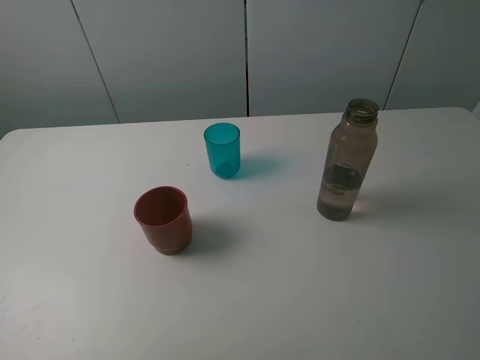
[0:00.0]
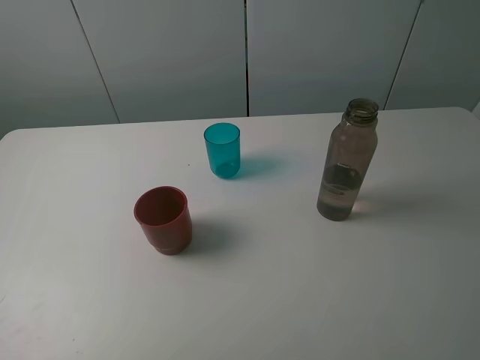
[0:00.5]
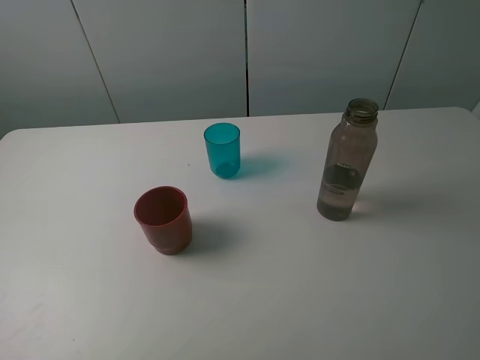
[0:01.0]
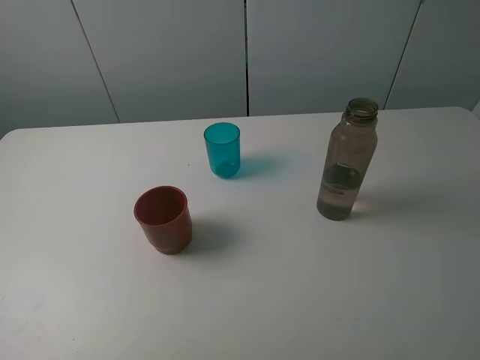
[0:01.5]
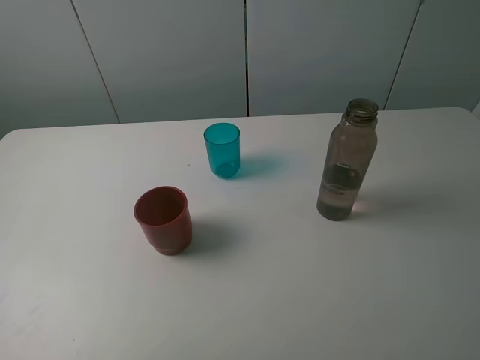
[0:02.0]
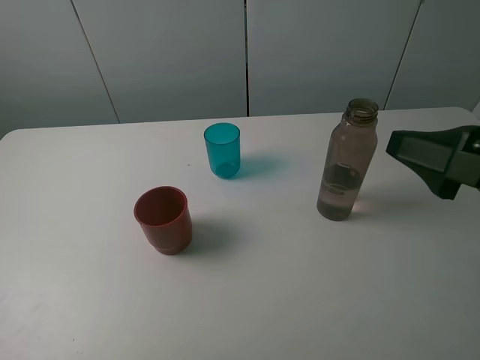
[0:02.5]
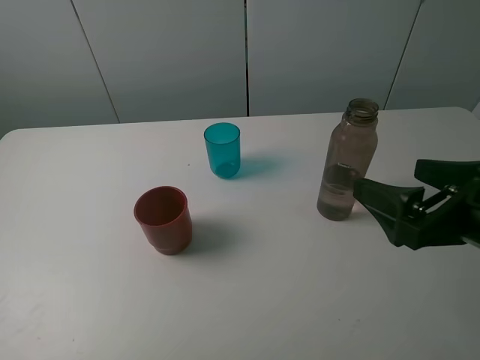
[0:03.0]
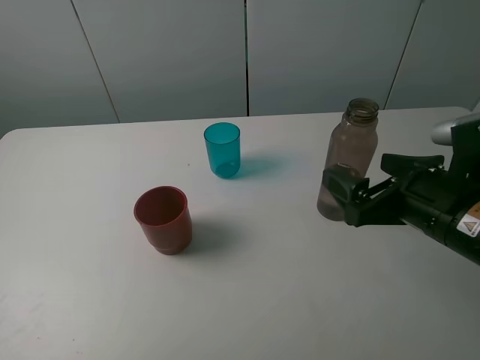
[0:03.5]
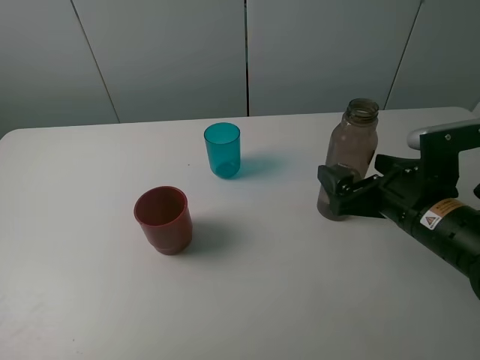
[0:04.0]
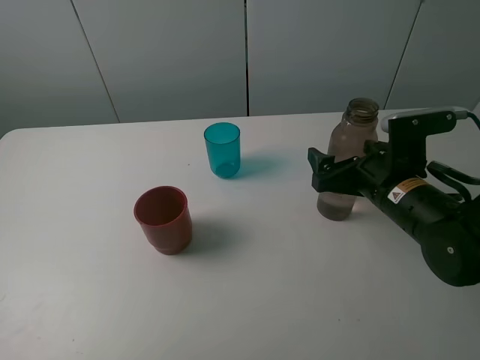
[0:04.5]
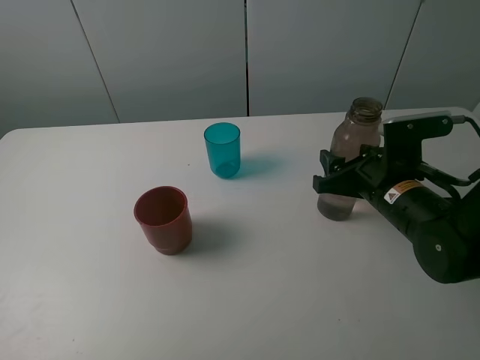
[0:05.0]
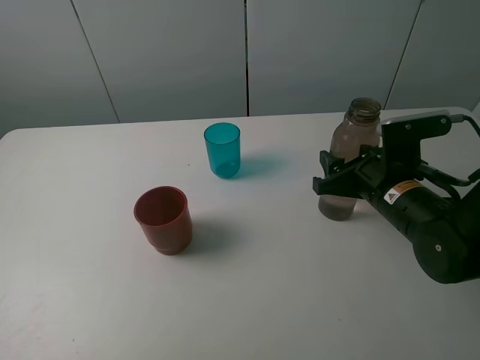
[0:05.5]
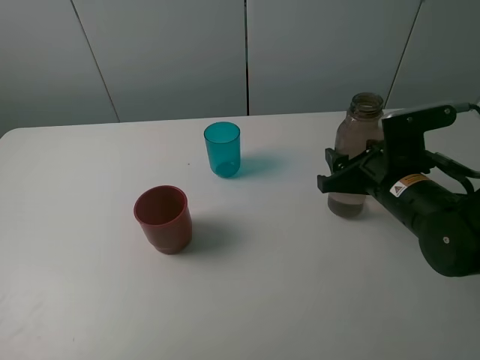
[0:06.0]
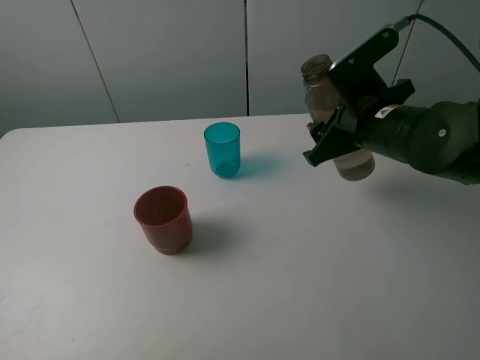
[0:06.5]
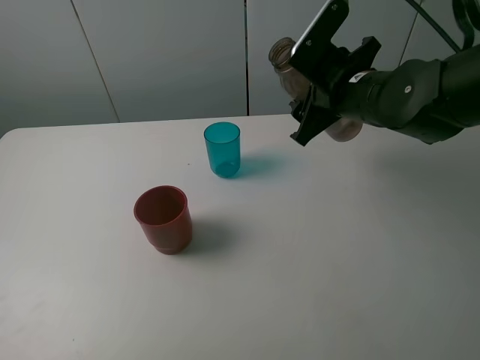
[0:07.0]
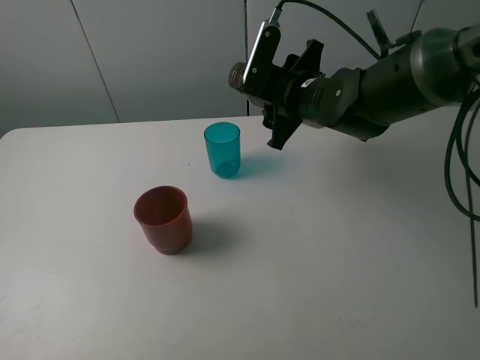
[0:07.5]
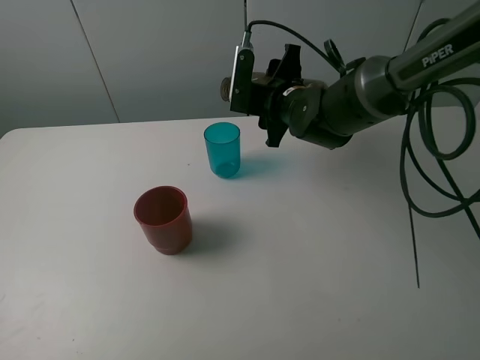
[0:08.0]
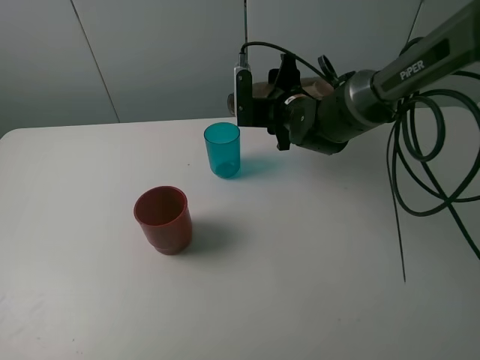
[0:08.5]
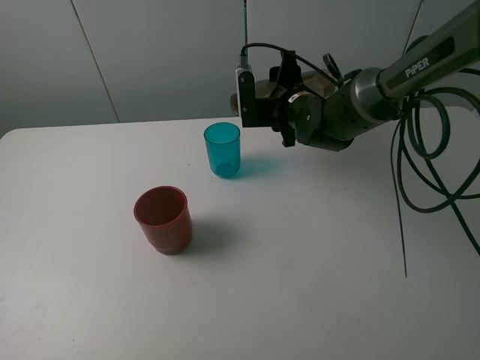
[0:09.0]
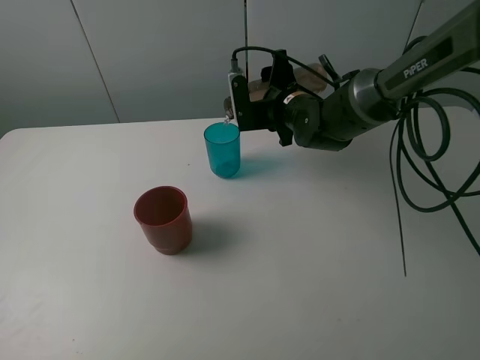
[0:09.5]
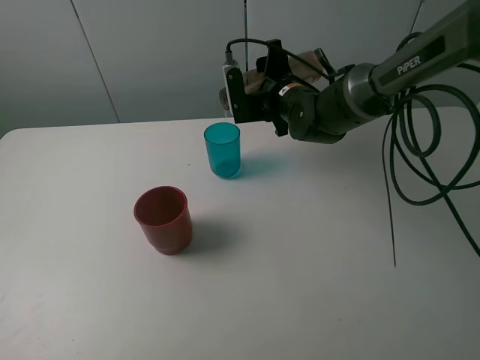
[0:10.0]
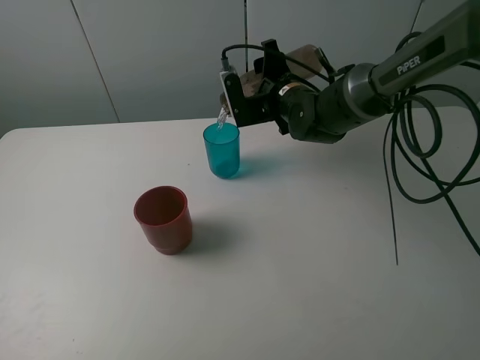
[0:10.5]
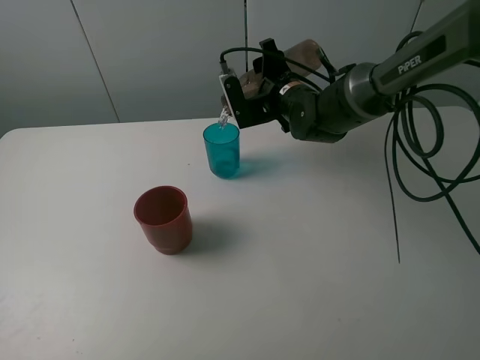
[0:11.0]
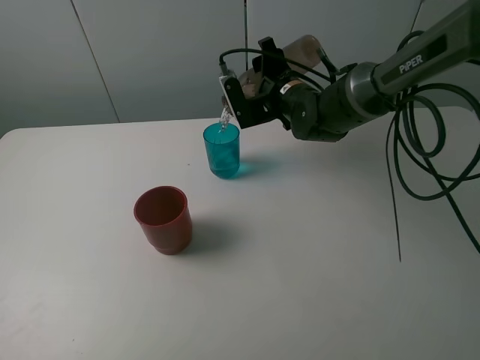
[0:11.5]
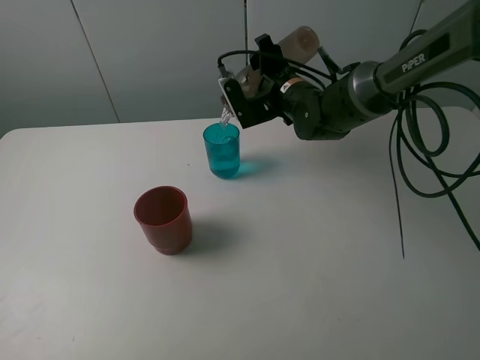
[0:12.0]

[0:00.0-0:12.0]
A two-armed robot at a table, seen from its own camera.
Task of the whole recording: pick up the bottle and pour water into the cup, then pick up the cup containing water and pour it into another cup.
Step, 0:00.0 to 0:05.0: Grasp the brown bottle with the right gripper.
0:02.0 to 0:04.0: The right gripper heads downward, forward and to the left, covering about 25 cm.
0:04.0 to 0:06.0: The right gripper closes its fingers.
0:06.0 to 0:08.0: The right gripper moves forward and to the left, roughly 20 cm.
0:10.0 to 0:12.0: The grippers move only a little.

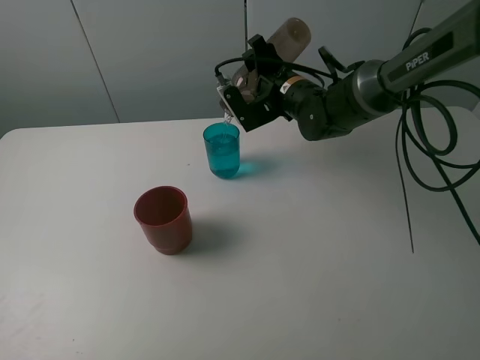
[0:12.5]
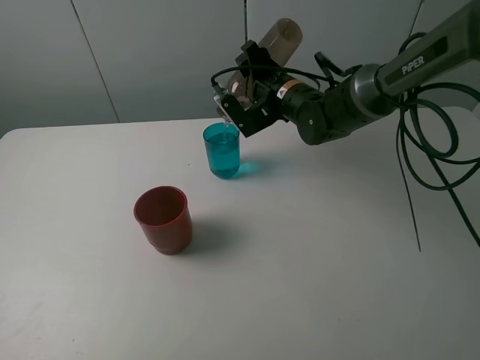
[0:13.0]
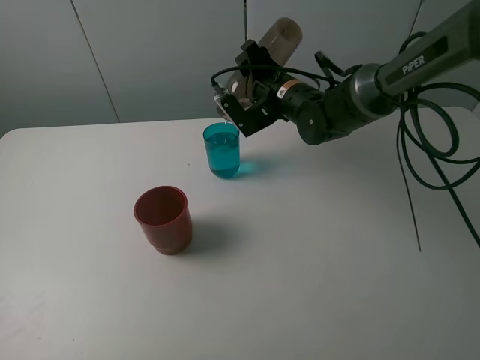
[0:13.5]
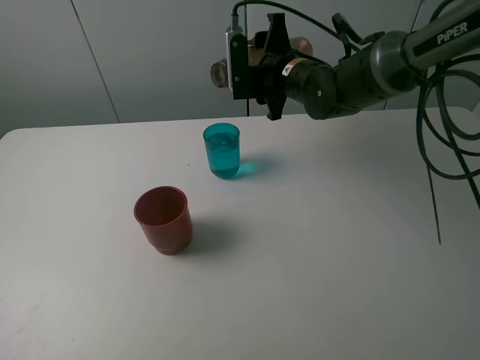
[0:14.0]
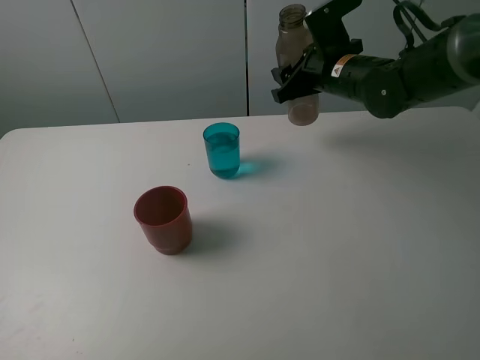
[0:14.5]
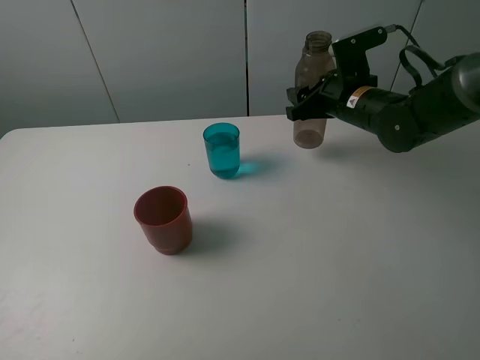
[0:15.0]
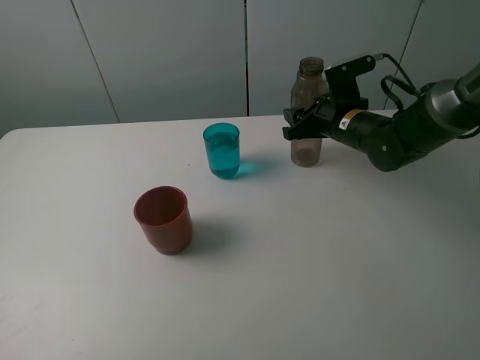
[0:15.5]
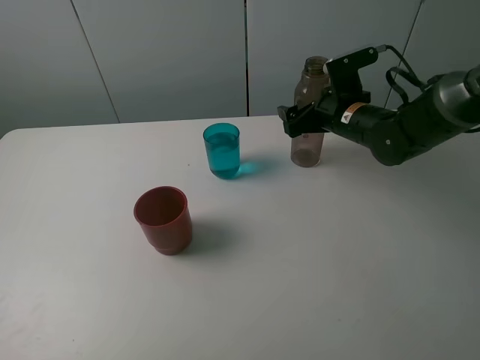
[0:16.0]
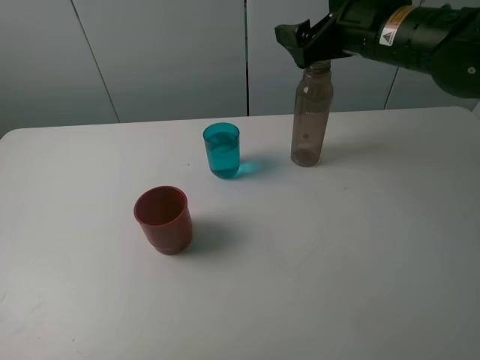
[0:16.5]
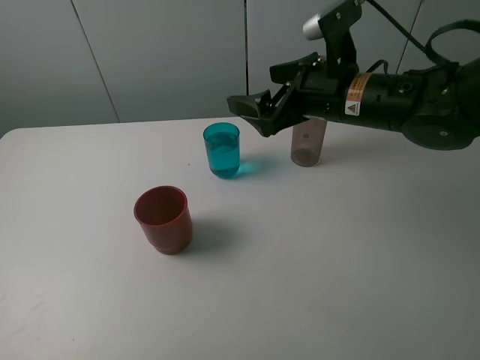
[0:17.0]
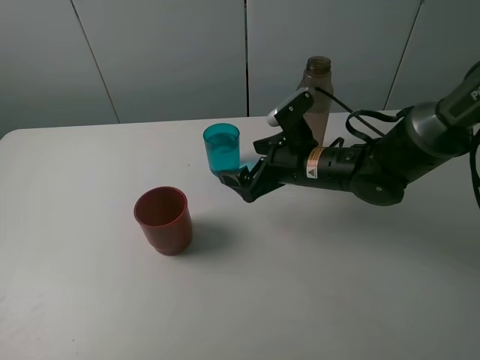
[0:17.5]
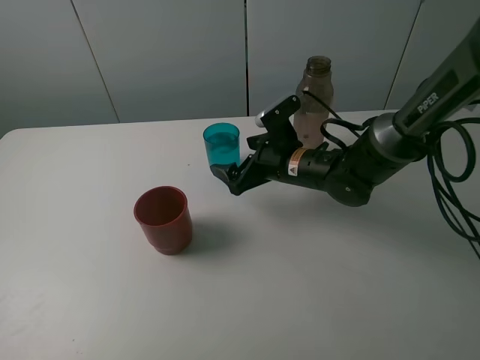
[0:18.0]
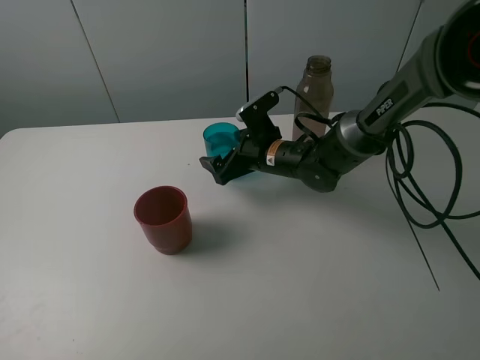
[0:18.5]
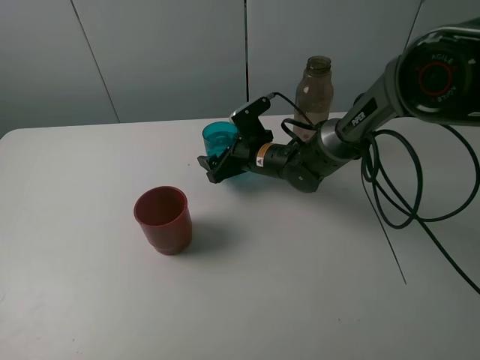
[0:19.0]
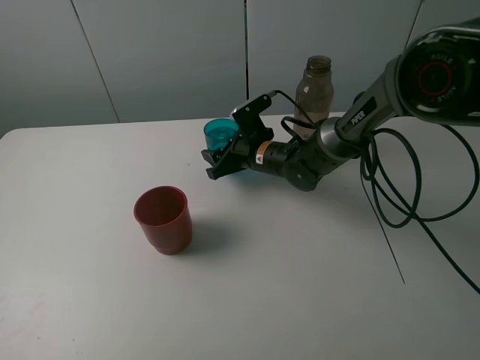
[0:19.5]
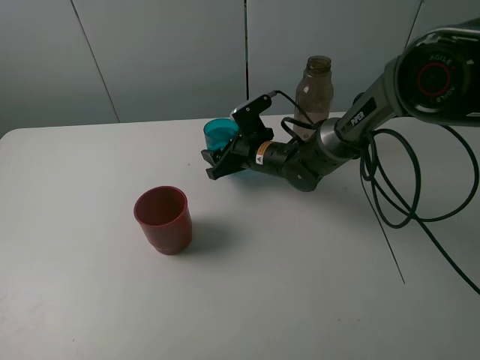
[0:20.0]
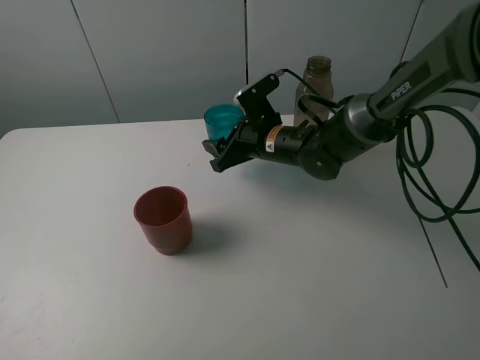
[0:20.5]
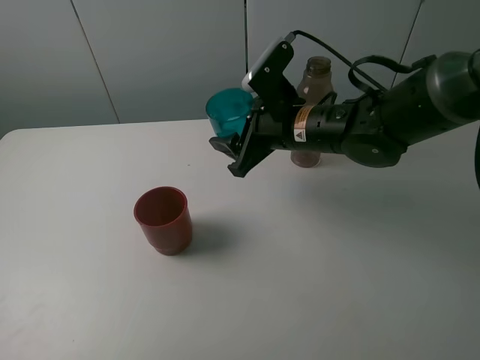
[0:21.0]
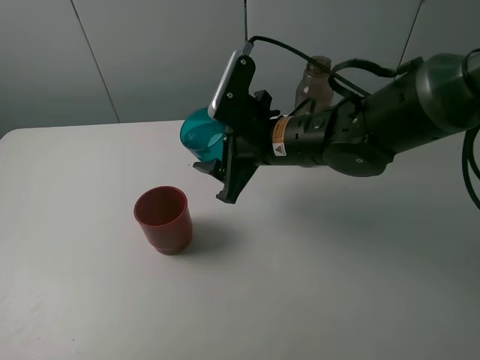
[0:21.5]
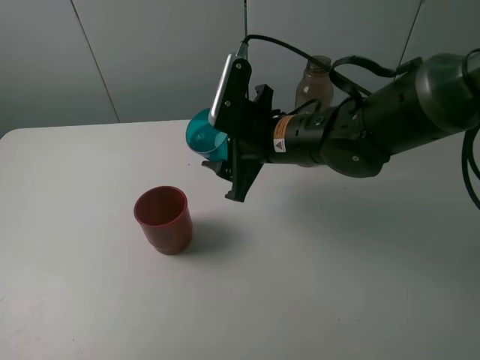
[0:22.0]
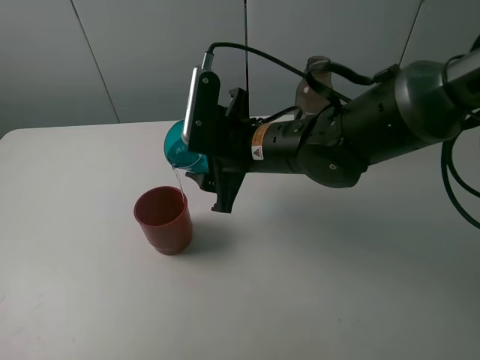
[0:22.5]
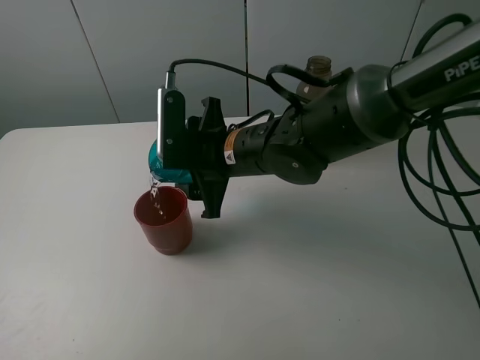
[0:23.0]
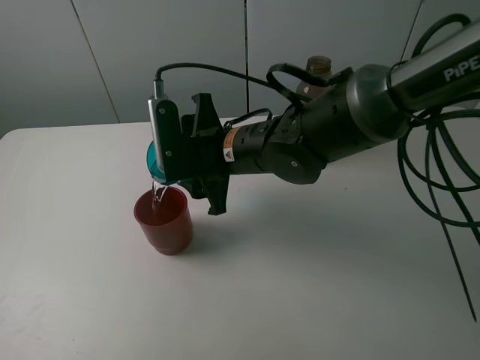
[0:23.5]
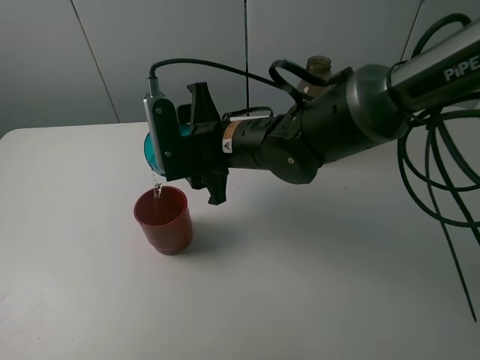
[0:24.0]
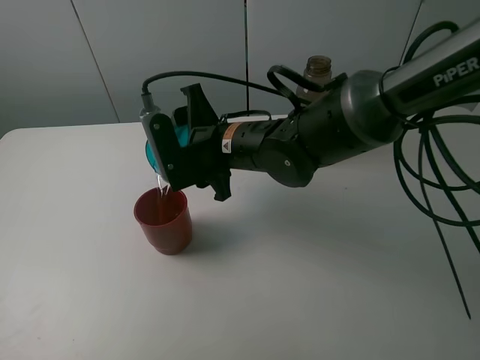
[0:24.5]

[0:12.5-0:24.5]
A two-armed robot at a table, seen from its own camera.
Task of the whole recording: pick up the bottle and pour water into the cup, then pick up the cup containing water and pour it into another cup.
Step, 0:14.0 to 0:15.5: Place the brown bottle with the right gripper.
Step, 0:16.0 to 0:19.0: Grasp the blue cup with the right gripper.
0:12.5 to 0:14.5: The right gripper travels to the right by some 5 cm.
0:14.5 to 0:16.5: The right gripper shifts roughly 10 cm upward and backward, and opens up.
0:16.5 to 0:18.5: The right gripper is displaced downward and to the left by about 25 cm.
0:18.5 to 0:20.5: The right gripper closes its fingers.
0:20.5 to 0:22.5: The right gripper goes roughly 10 cm backward and upward.

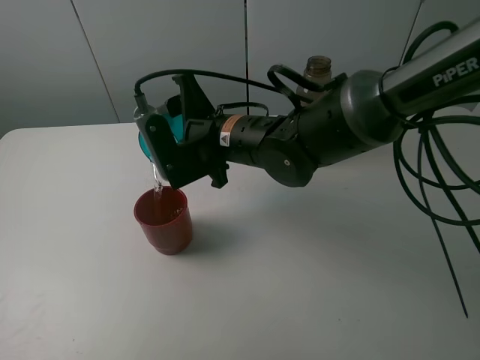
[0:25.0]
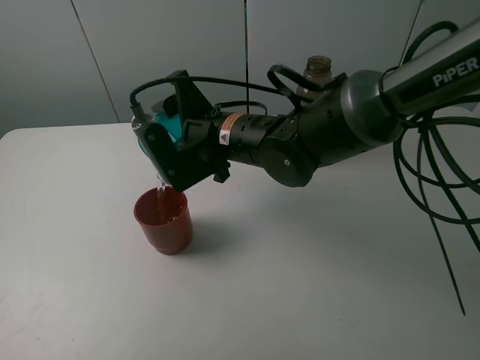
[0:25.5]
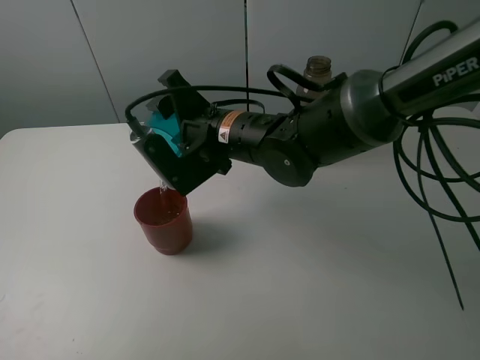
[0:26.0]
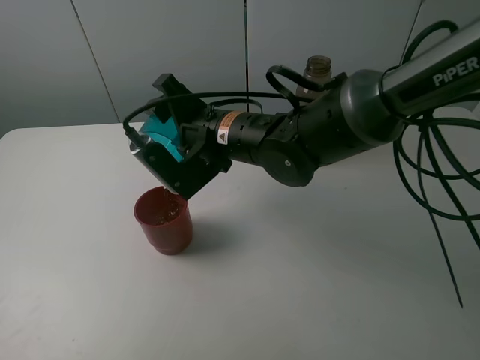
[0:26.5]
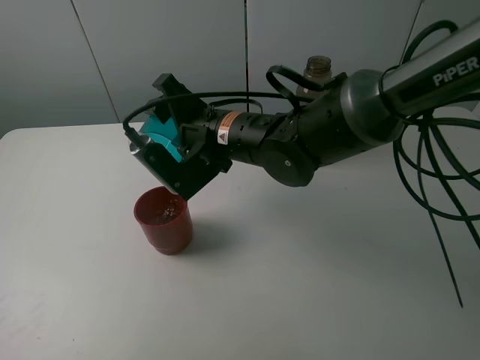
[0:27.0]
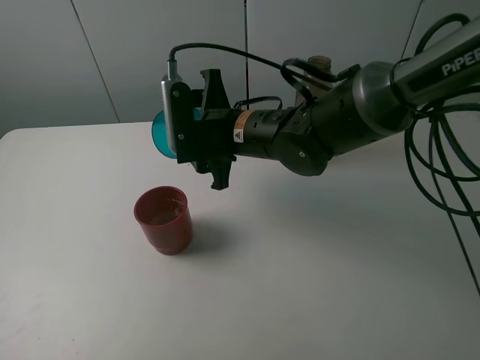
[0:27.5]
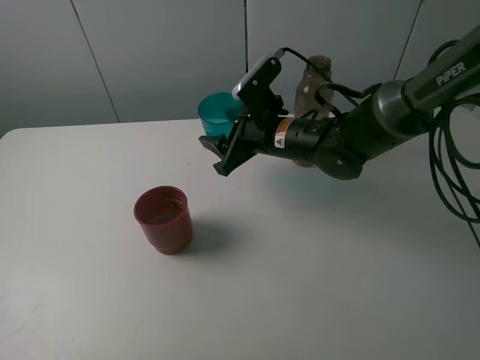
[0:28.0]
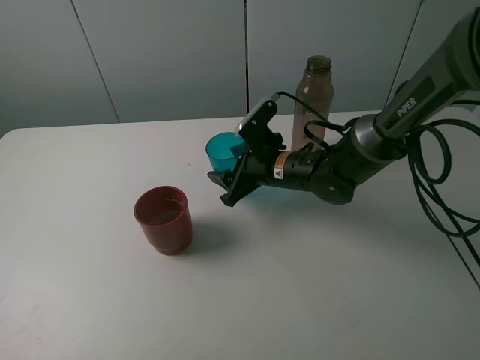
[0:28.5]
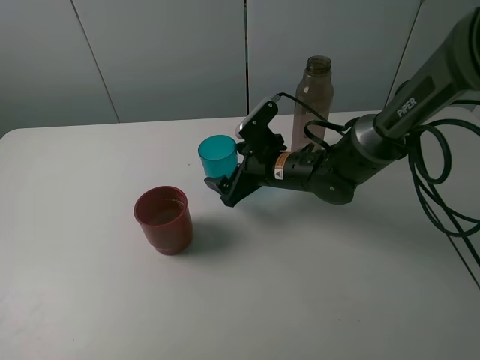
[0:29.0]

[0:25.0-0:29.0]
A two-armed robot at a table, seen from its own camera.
Task of the whole recording: pick up the bottle and pour water into the cup, then pick up the cup containing water and pour it into another cup.
Step, 0:25.0 to 0:27.0: Pour water from blue cup to red cup with the right gripper.
Step, 0:27.5 to 0:29.0: Place the blue cup with the right gripper.
0:27.0 to 0:29.0: The right gripper shifts roughly 15 cm downward and to the right, and opens its fingers.
